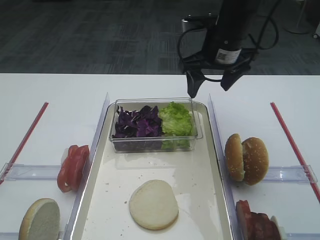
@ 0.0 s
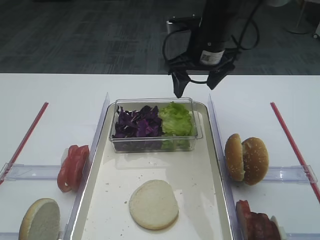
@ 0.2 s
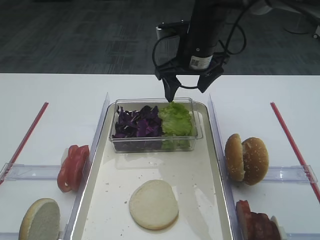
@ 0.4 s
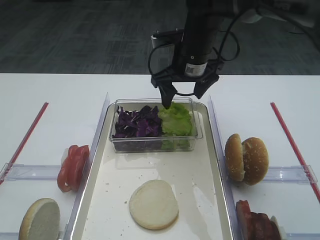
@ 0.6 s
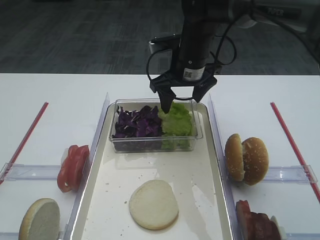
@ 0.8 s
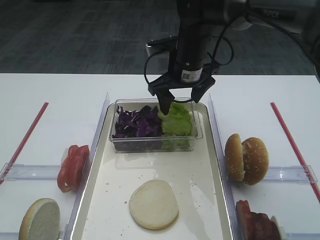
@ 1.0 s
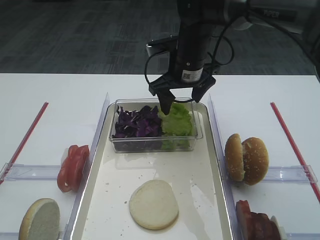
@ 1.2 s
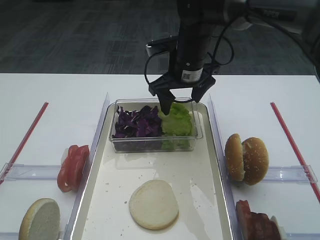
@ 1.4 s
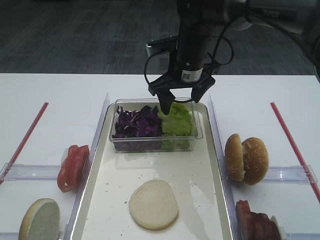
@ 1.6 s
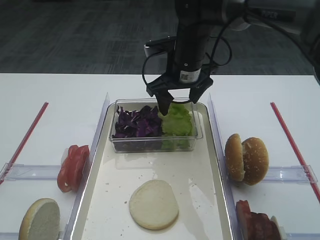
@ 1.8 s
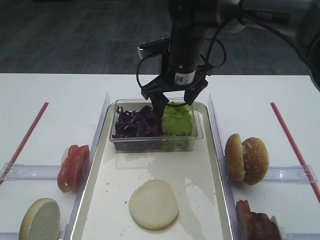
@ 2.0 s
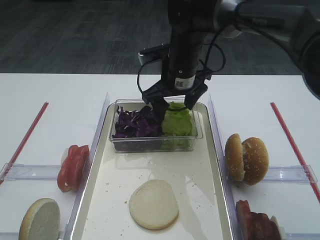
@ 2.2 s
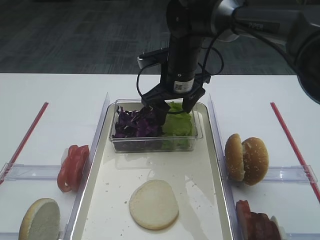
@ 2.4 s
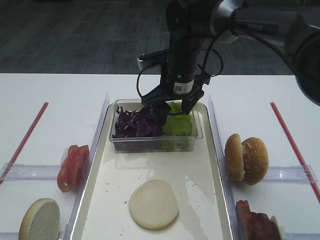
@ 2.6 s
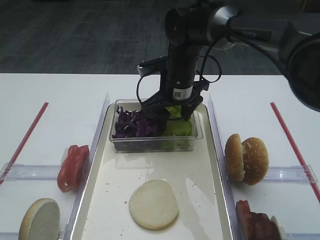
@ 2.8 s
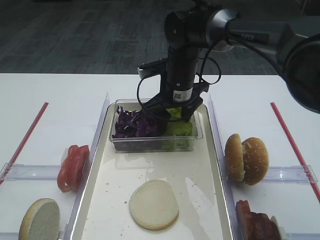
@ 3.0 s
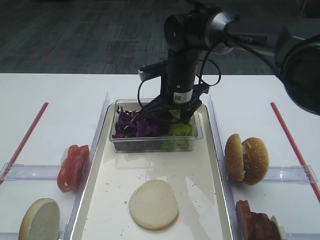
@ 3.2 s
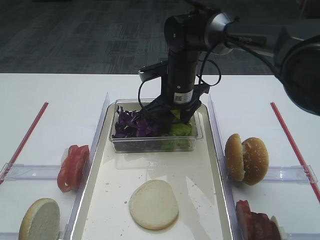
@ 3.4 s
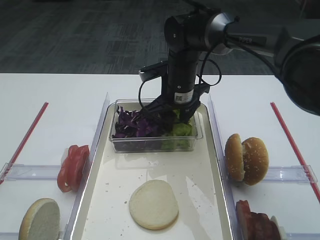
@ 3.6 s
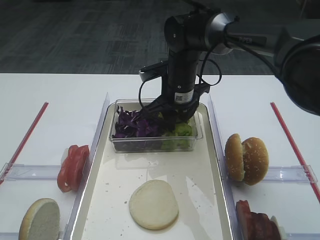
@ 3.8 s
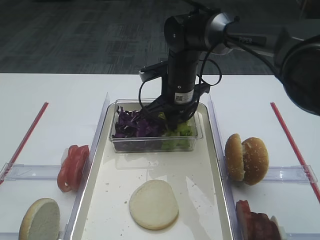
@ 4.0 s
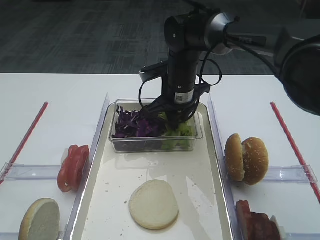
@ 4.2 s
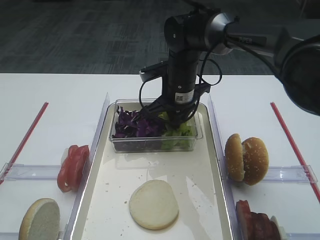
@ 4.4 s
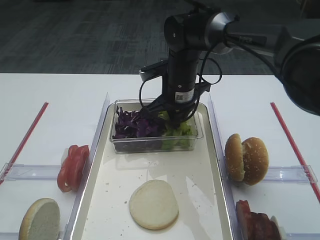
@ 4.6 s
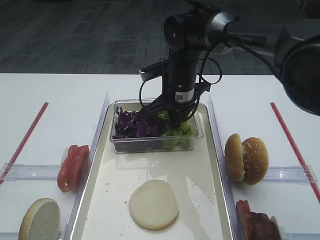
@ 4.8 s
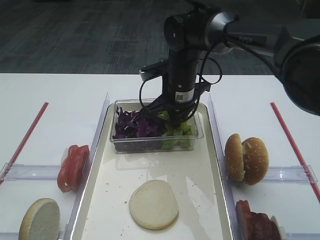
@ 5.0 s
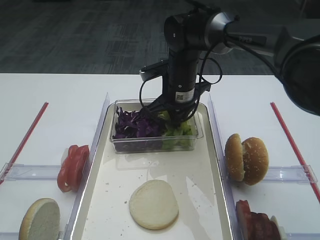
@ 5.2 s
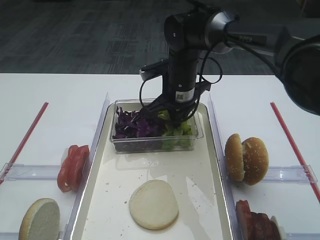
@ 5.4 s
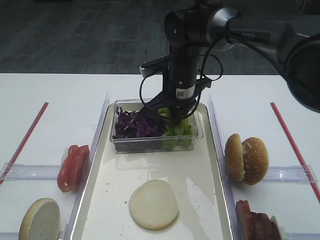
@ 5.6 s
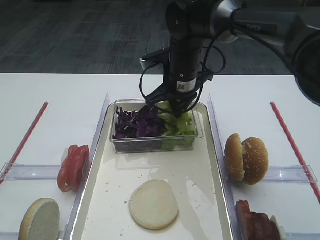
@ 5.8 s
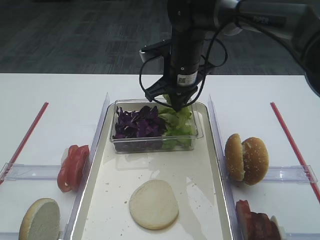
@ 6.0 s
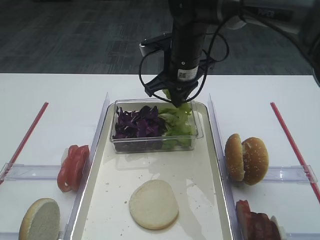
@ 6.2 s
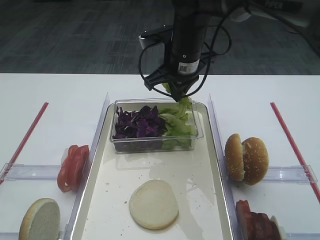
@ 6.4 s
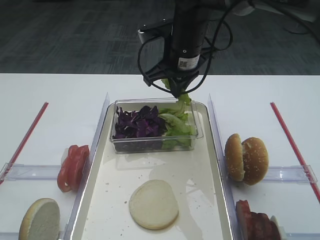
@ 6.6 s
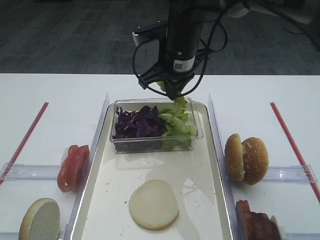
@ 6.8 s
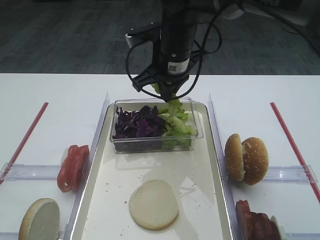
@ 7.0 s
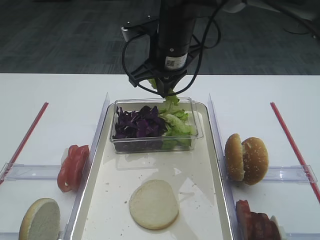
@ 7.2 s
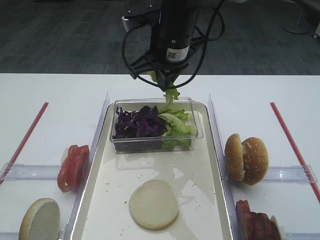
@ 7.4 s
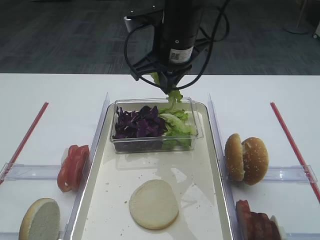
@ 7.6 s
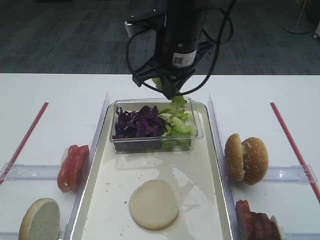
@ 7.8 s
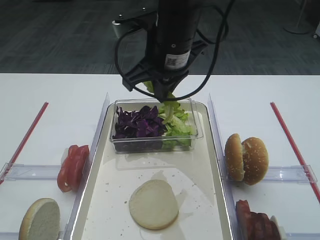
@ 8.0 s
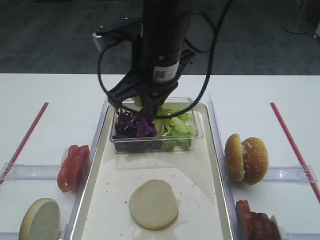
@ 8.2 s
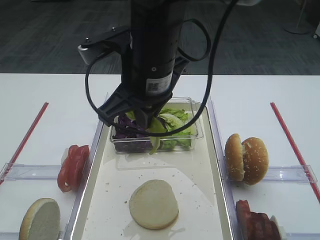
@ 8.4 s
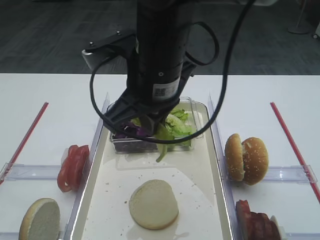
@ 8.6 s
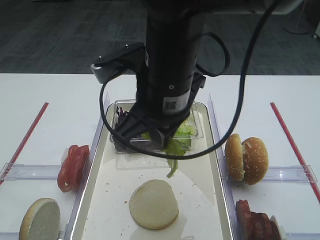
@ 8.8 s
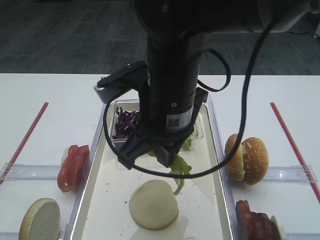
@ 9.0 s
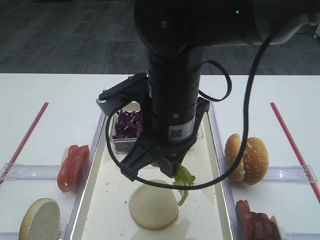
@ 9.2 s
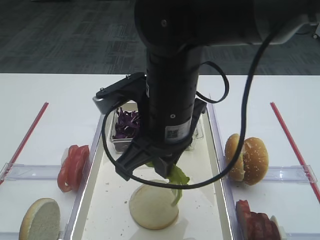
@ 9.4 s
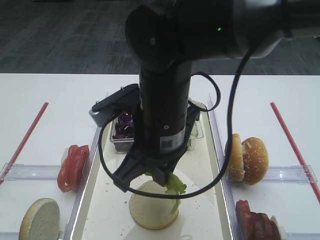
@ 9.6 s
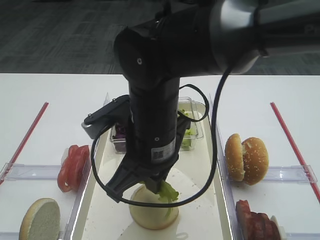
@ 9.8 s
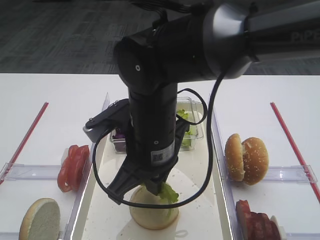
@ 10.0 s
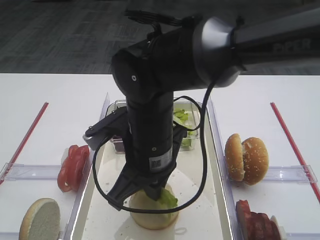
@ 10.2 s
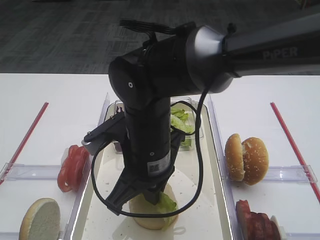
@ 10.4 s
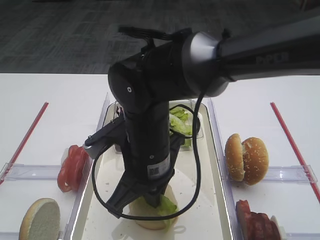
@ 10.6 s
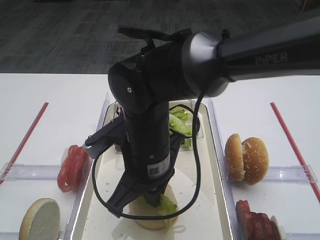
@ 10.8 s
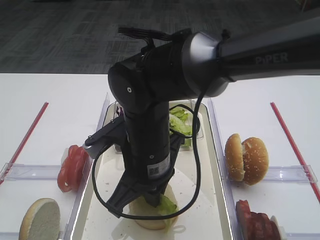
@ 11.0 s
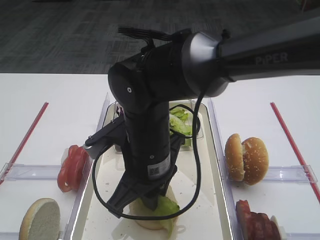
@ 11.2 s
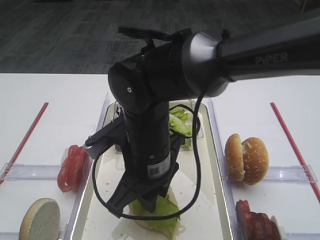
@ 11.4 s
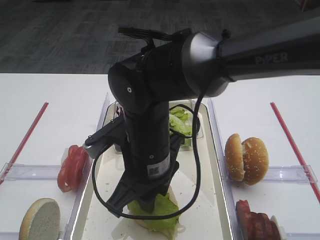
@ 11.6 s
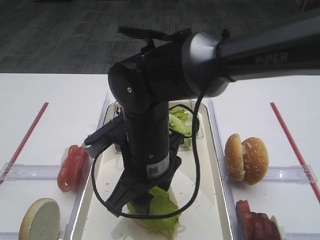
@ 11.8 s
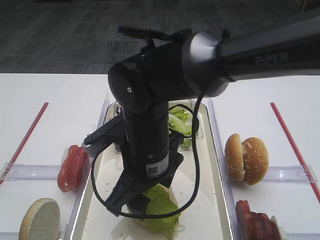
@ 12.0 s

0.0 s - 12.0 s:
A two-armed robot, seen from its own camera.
Step, 0.0 s - 6.2 s: Pick up the lettuce leaf with the right gripper.
0.0 s - 1.6 s: The right gripper shifts approximately 5 cm to the left.
1.6 s - 3.0 s: The grippers stay close to where they were, moving slightly.
3.0 s - 4.4 s: The right gripper closes up.
4.4 s - 6.0 s: The grippers make only small movements.
6.0 s - 7.6 s: The right gripper travels upward by some 5 cm.
7.6 s - 9.0 s: The right gripper travels backward by approximately 15 cm.
9.0 s - 10.4 s: The right gripper goes about 10 cm downward.
10.4 s - 12.0 s: The right gripper opens.

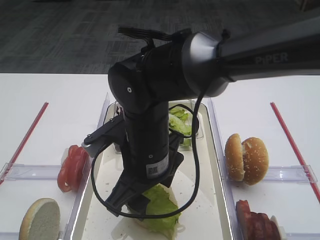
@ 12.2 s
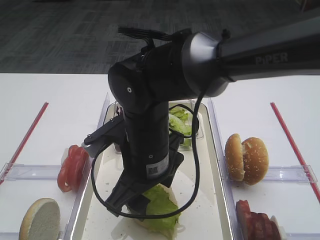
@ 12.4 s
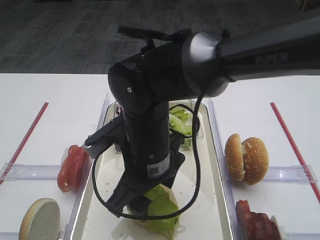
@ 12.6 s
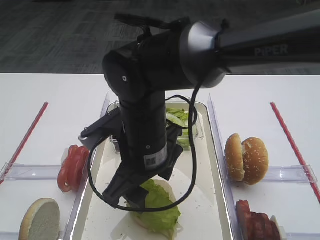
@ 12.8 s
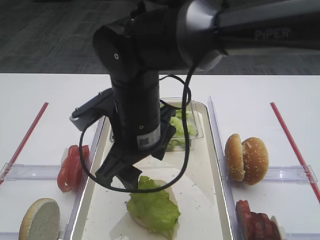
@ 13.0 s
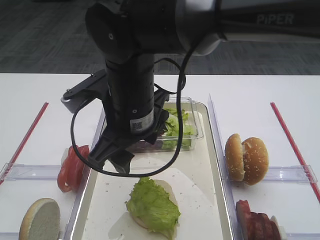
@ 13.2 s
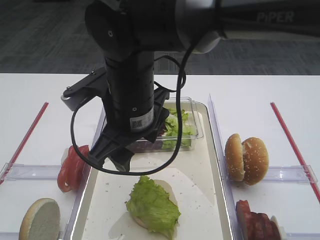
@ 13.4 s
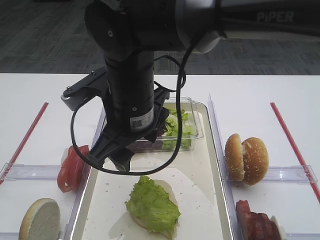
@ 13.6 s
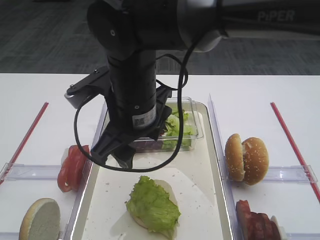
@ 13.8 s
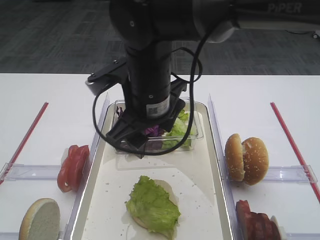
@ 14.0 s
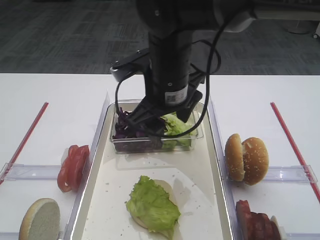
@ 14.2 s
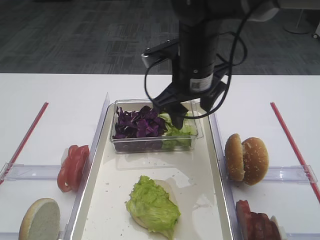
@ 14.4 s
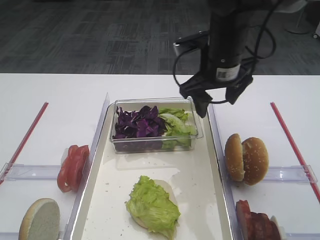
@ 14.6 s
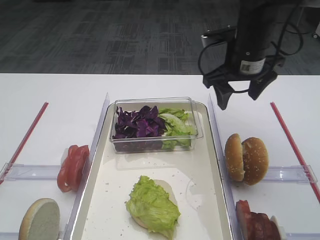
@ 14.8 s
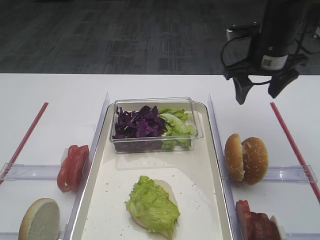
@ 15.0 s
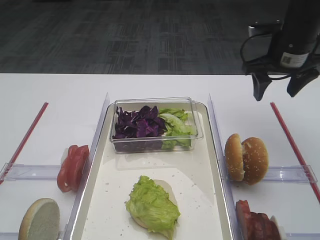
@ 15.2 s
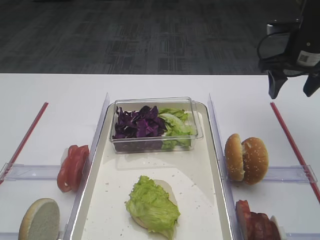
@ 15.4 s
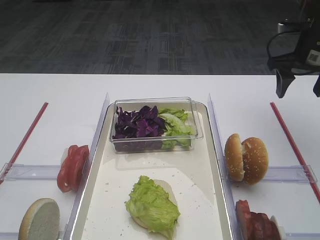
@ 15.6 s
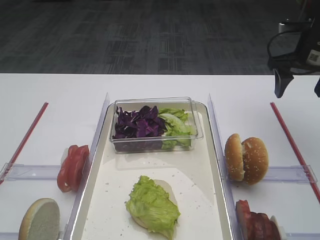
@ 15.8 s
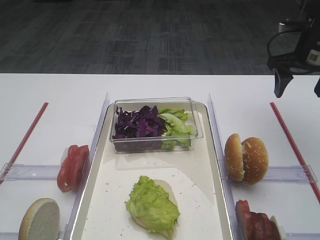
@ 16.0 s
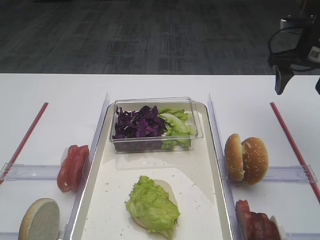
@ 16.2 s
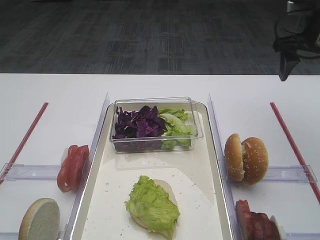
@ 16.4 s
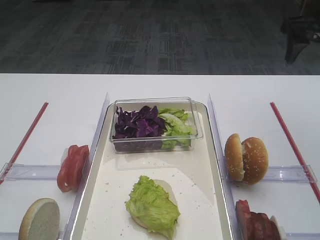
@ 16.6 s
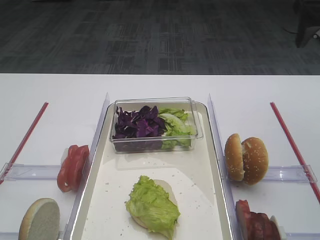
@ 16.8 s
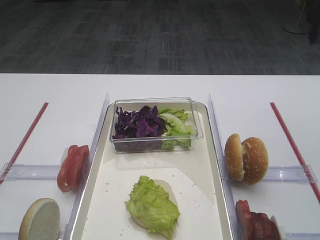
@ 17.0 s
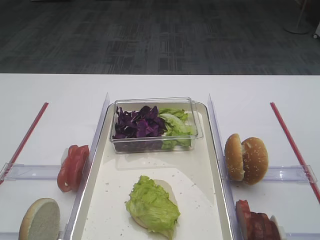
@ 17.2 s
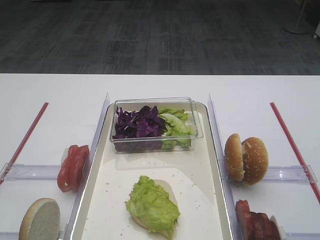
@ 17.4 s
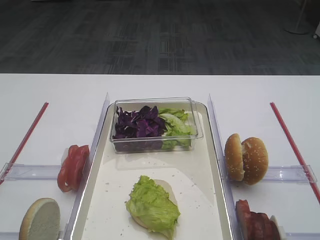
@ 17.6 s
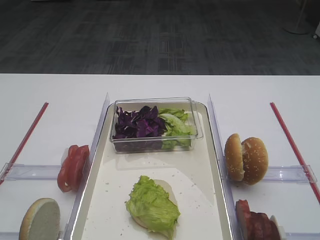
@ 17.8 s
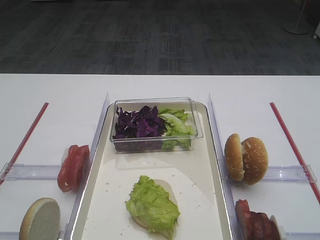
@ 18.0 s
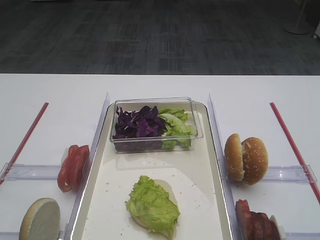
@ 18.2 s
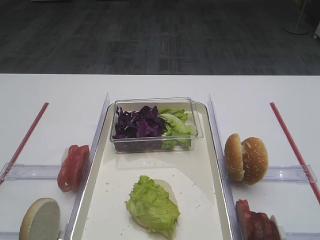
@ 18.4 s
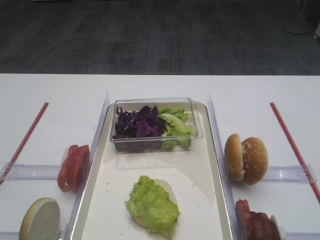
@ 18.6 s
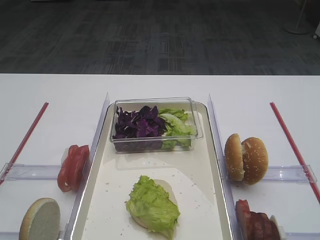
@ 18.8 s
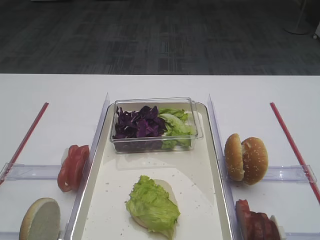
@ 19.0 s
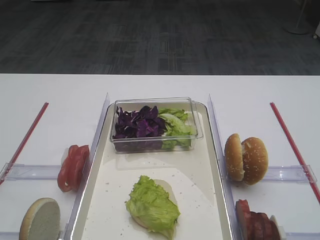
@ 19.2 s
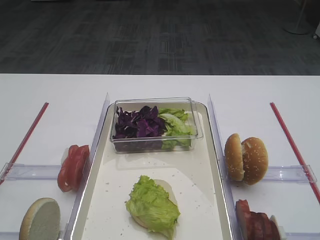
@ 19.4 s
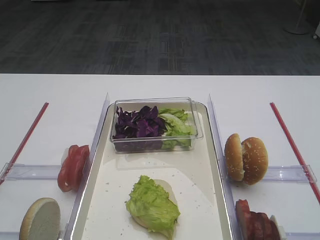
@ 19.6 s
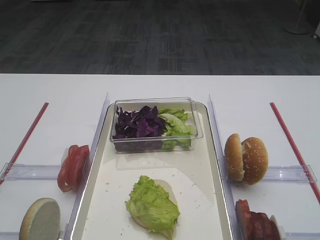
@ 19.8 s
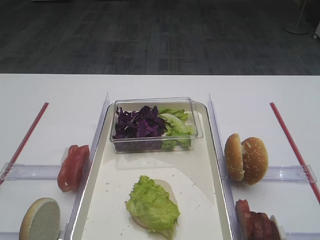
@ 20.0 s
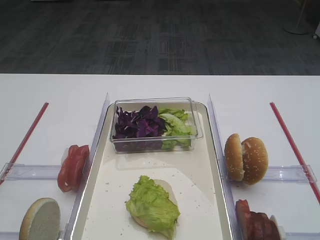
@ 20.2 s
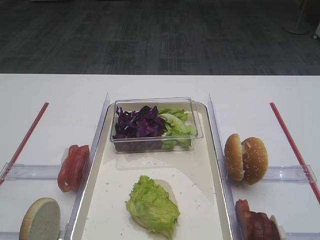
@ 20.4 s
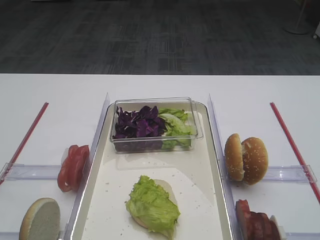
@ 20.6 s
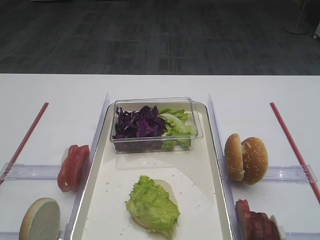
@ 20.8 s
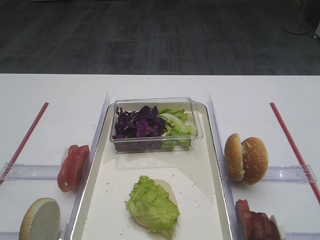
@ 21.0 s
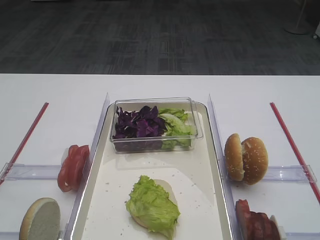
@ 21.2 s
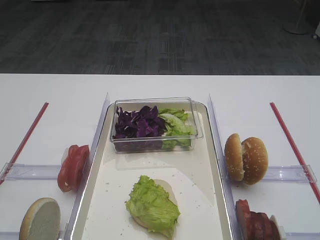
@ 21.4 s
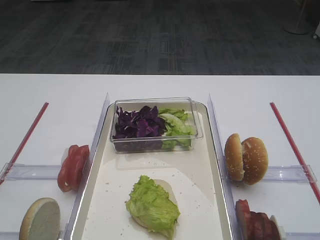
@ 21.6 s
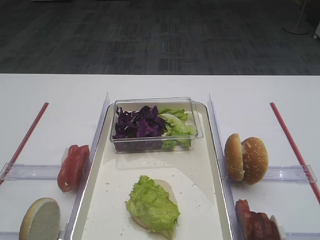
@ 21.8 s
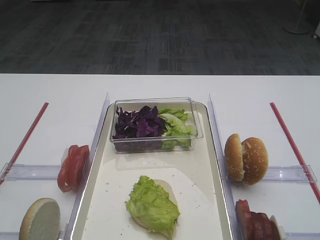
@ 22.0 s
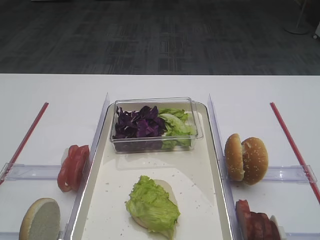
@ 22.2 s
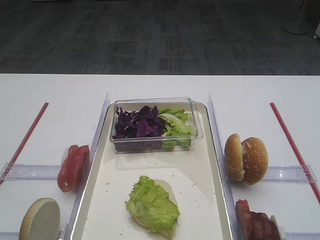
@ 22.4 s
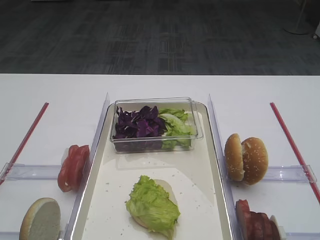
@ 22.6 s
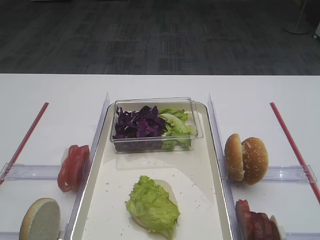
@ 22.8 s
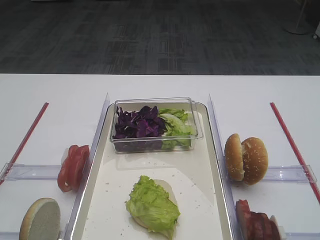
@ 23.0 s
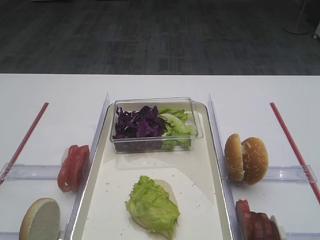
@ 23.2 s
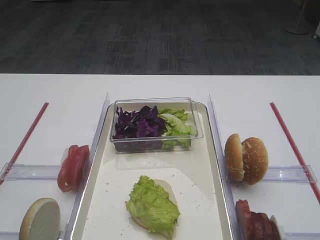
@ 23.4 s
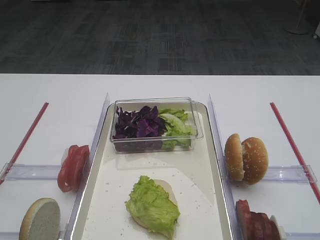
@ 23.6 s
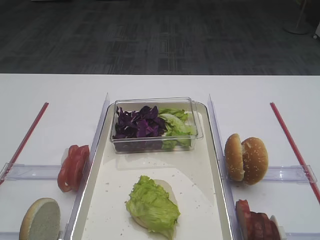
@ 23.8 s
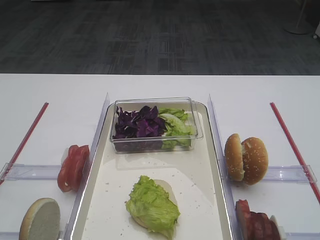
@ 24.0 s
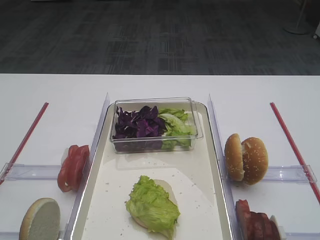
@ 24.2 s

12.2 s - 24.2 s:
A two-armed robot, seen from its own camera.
12.2 s - 13.8 s: The right gripper is displaced upward by approximately 5 cm.
13.8 s - 15.2 s: The right gripper shifts about 30 cm to the right and forward.
15.2 s - 16.6 s: The right gripper is displaced upward and to the right by about 10 cm.
19.8 s - 21.2 s: Both grippers stay about where they are.
